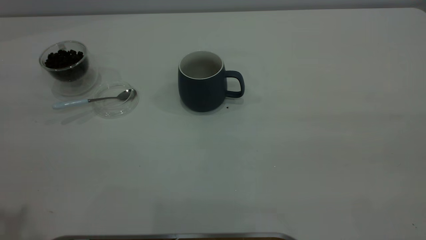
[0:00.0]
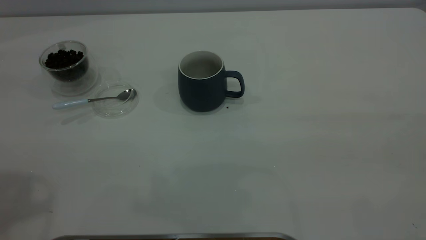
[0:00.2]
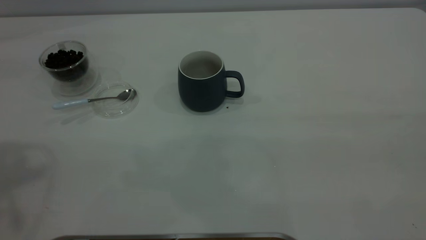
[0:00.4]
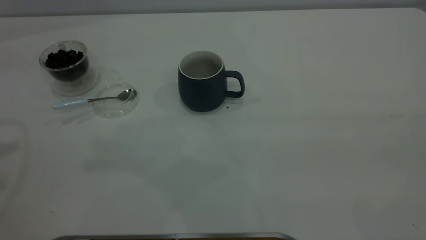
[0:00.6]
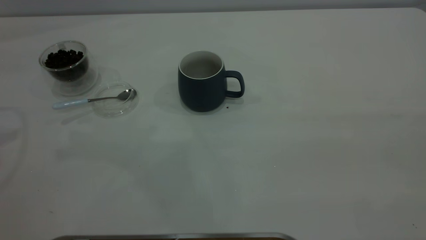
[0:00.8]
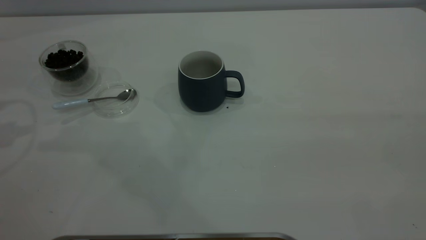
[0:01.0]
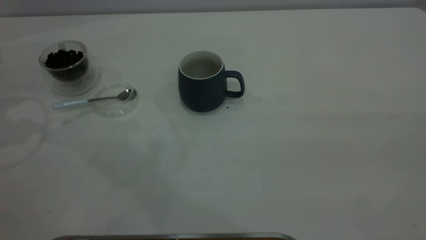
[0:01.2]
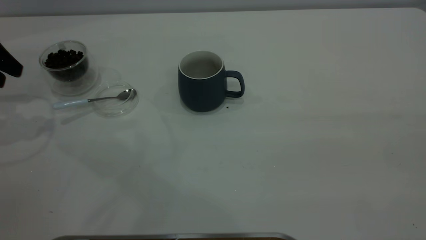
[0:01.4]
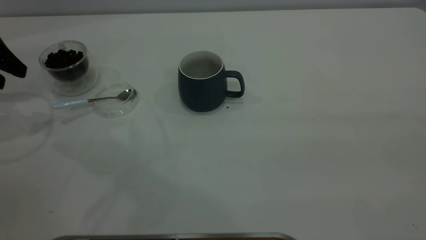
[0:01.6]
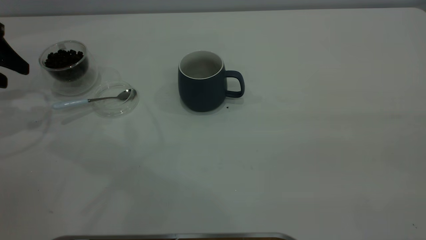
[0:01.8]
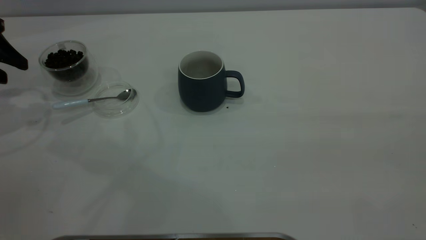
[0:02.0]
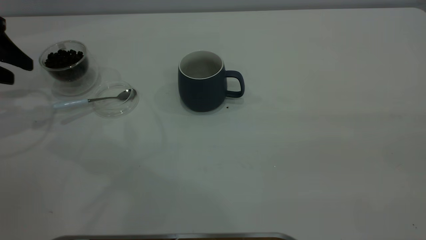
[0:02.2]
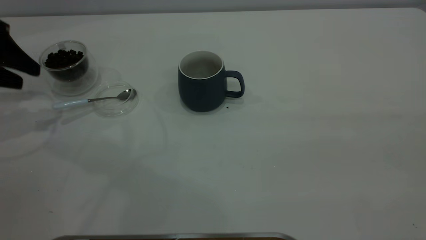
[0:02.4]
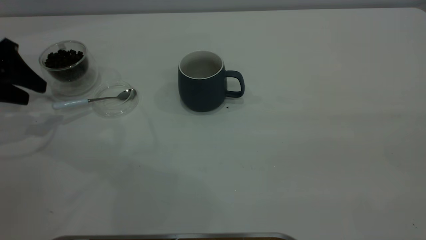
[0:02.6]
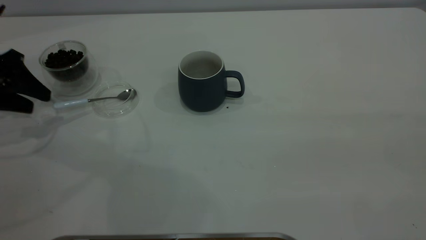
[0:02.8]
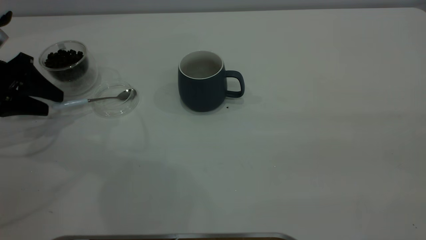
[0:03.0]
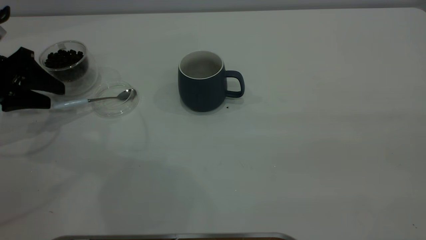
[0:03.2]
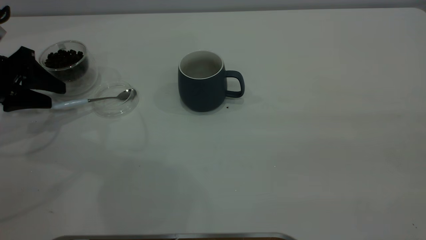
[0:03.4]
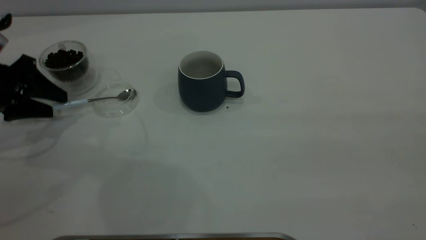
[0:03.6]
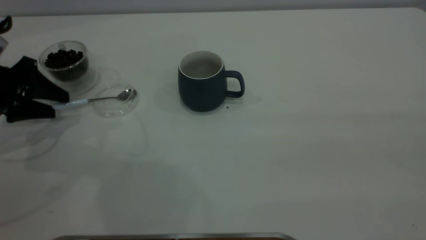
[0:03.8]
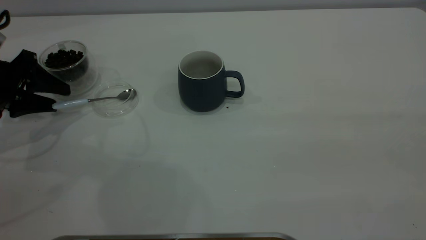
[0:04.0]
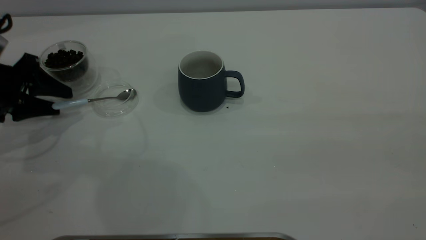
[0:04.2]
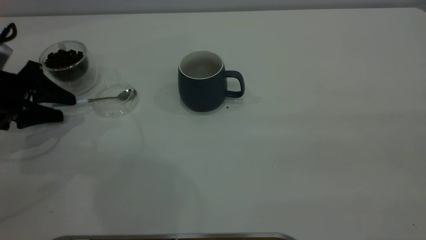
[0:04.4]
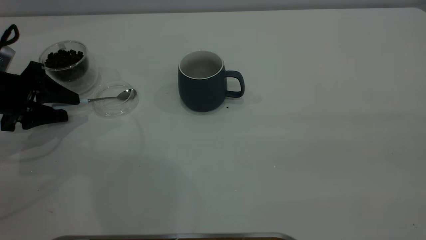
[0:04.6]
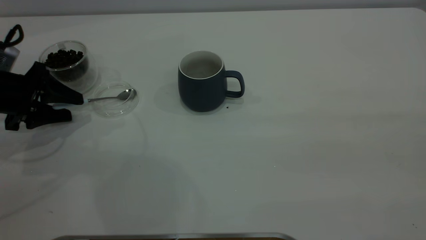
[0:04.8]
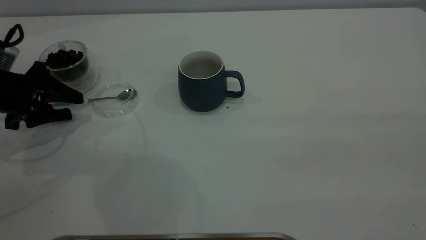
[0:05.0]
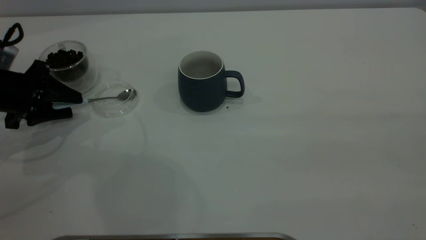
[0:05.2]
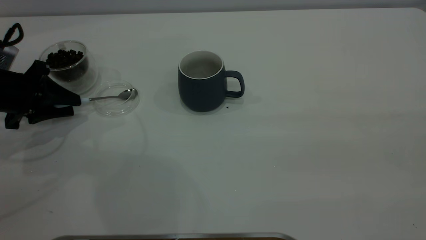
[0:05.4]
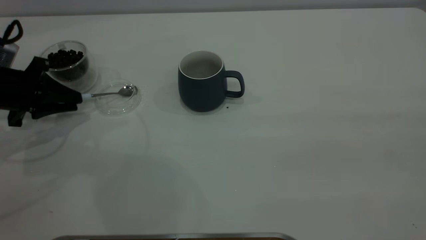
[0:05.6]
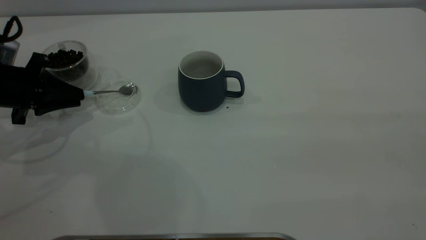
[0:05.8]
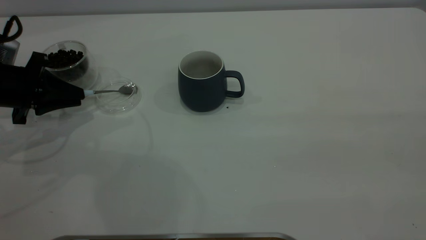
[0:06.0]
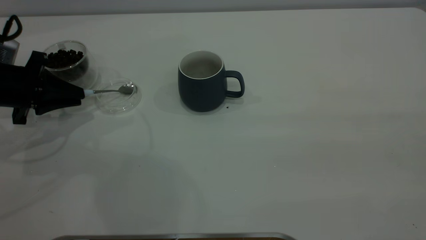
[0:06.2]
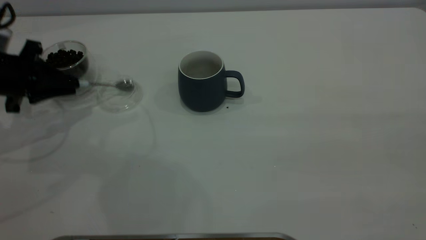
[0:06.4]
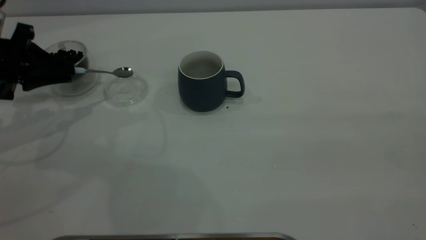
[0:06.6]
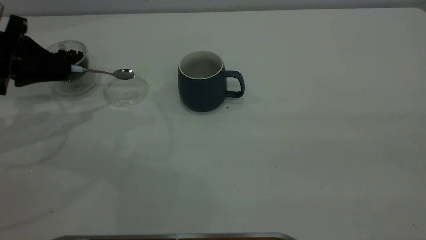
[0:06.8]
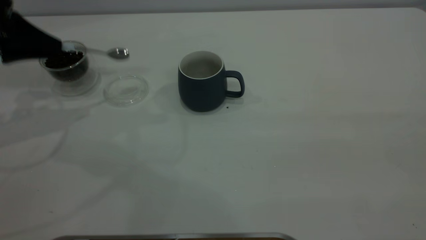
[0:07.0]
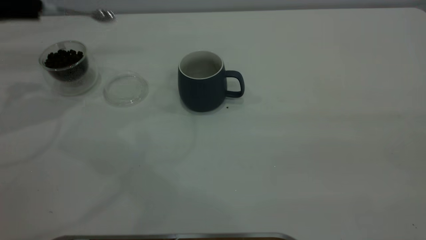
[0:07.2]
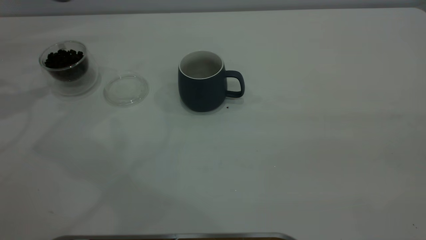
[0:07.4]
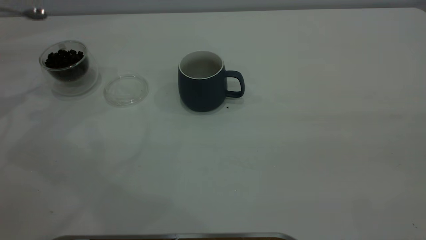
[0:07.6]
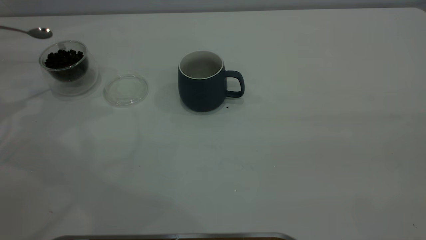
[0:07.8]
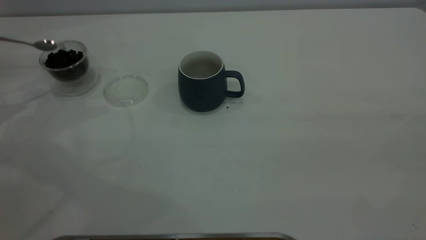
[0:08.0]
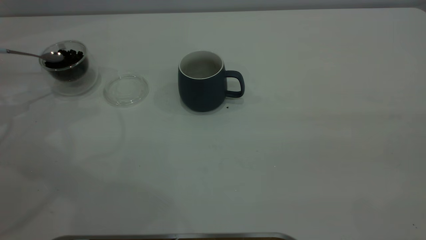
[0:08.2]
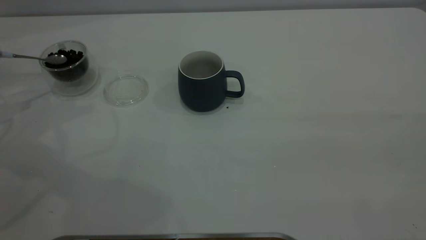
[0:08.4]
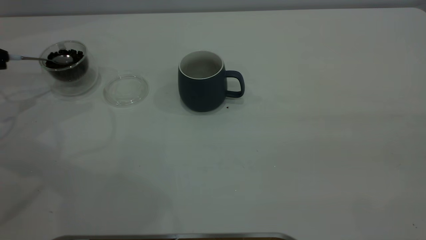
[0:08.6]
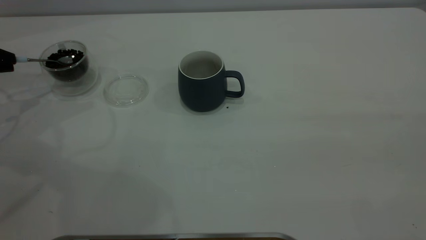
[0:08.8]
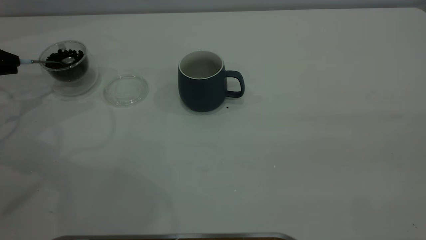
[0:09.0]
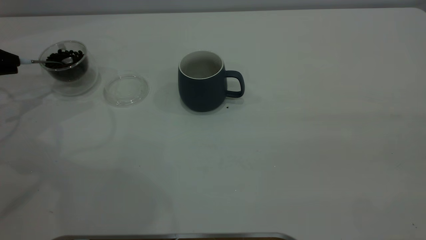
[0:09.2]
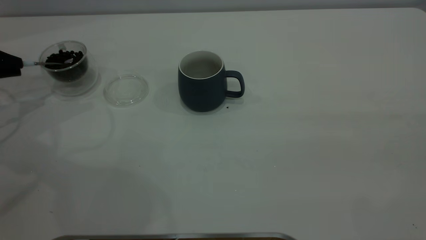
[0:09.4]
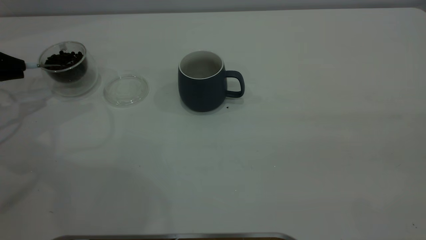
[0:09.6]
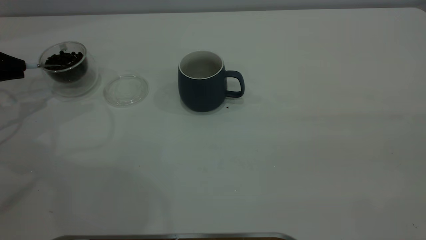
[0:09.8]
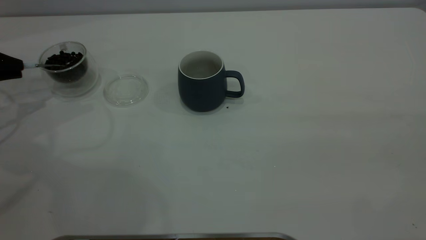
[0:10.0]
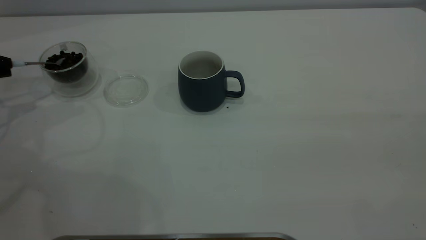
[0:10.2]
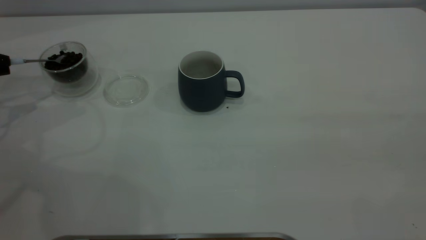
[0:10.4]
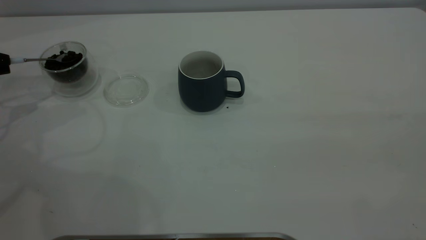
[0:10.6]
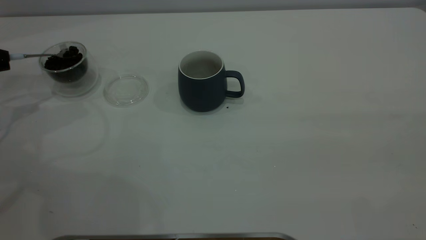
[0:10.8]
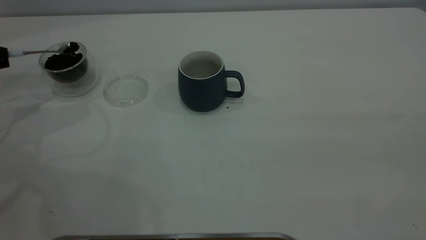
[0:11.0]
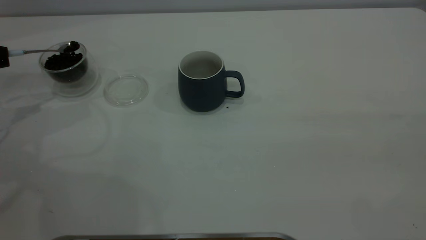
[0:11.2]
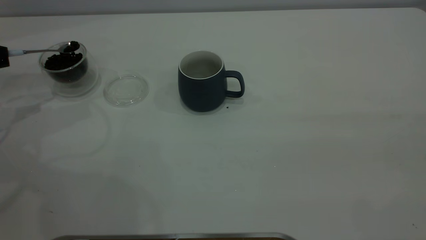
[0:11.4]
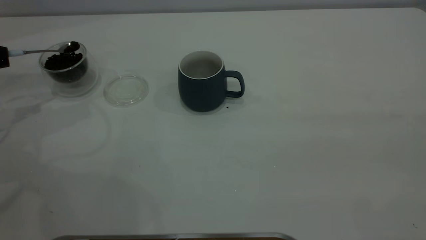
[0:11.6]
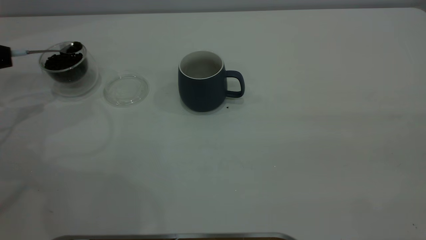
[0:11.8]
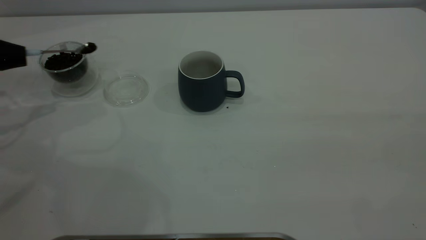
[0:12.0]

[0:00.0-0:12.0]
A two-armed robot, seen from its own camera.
Task of the whole recording: the right gripper place the grey cup in the center of the table, the left gripper take the blue spoon from the cup lid and scoop out the coffee beans from the coffee cup and put them into the grey cup, the left gripper put the spoon back into the cup lid.
Step, 0:00.0 to 0:07.0: Pick up the spoon.
0:00.0 to 0:01.6: The left gripper heads forward, downward and to the left, covering approximately 30 cm.
0:01.6 to 0:03.0: The left gripper heads downward, covering roughly 10 cm.
0:03.0 to 0:04.4: The grippers stay close to where they were, moving slightly.
0:04.4 to 0:06.0: The left gripper closes its fingers.
0:06.0 to 0:07.6: The left gripper shifts some 20 cm upward and to the left.
0:07.6 to 0:09.0: The left gripper goes some 10 cm downward.

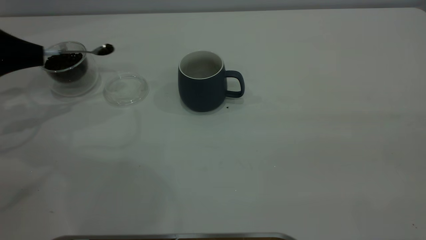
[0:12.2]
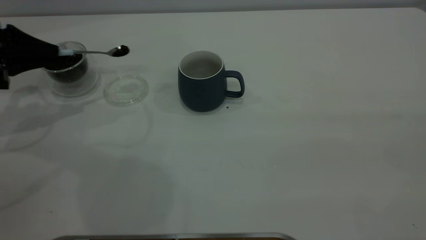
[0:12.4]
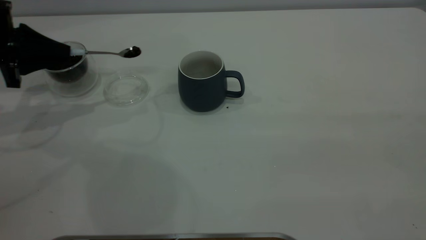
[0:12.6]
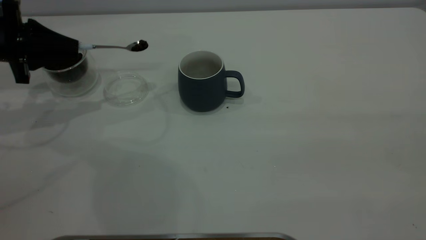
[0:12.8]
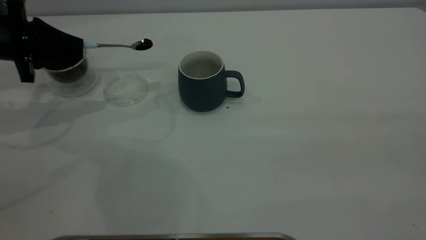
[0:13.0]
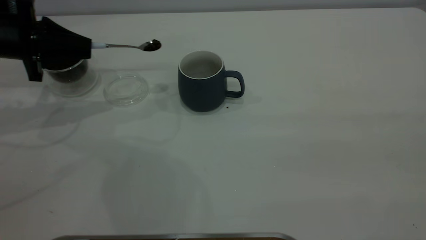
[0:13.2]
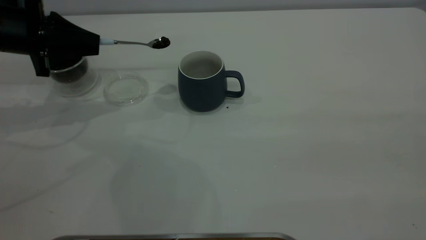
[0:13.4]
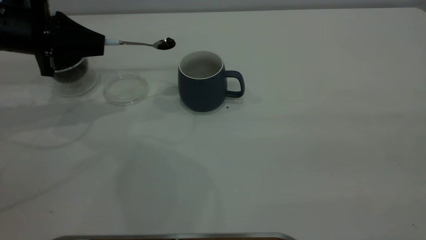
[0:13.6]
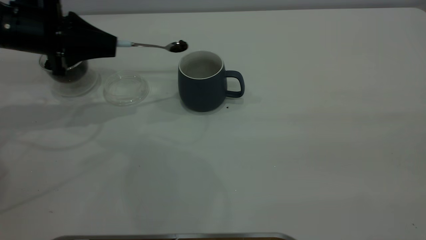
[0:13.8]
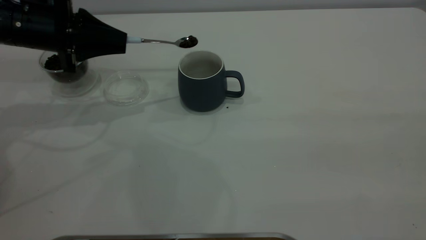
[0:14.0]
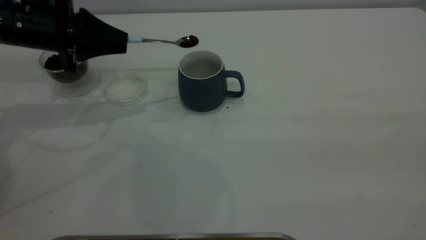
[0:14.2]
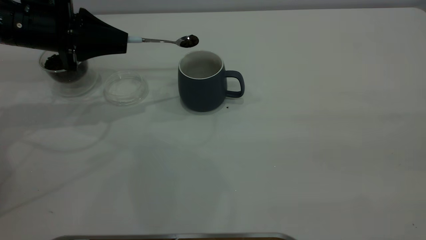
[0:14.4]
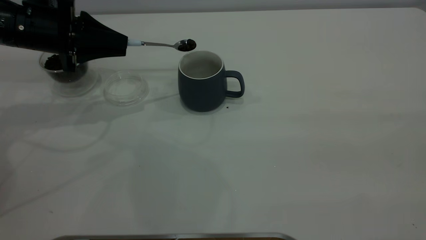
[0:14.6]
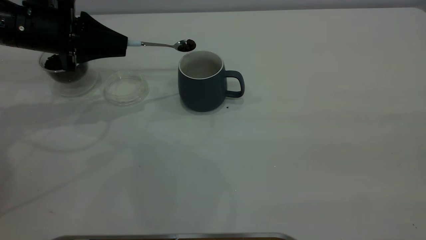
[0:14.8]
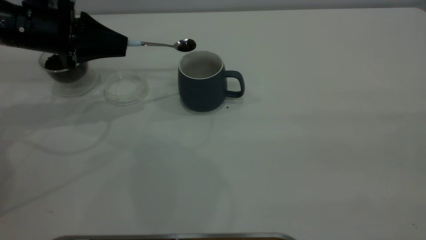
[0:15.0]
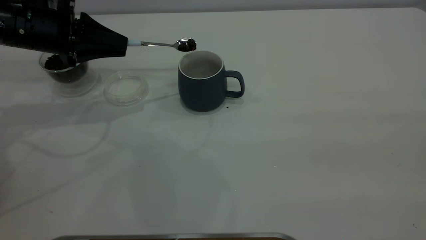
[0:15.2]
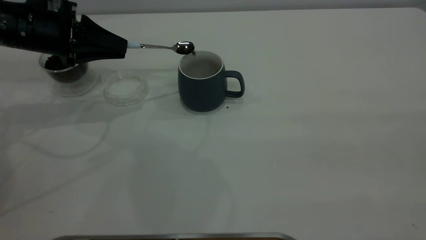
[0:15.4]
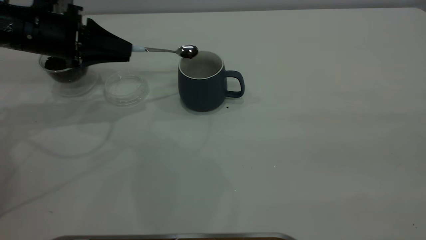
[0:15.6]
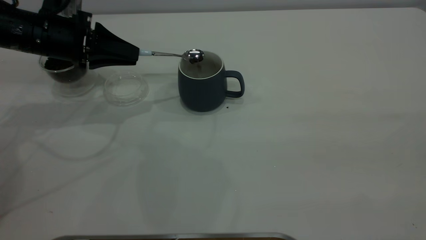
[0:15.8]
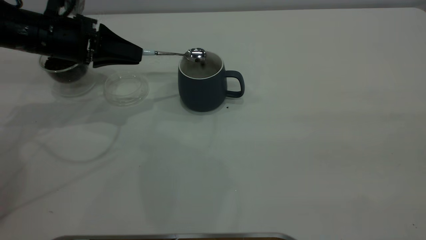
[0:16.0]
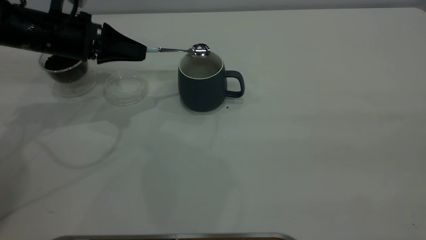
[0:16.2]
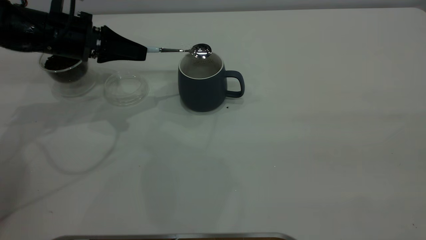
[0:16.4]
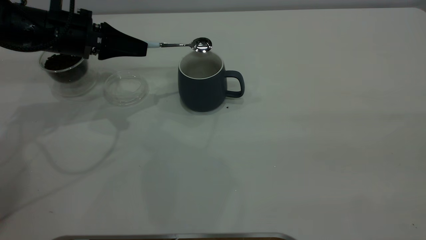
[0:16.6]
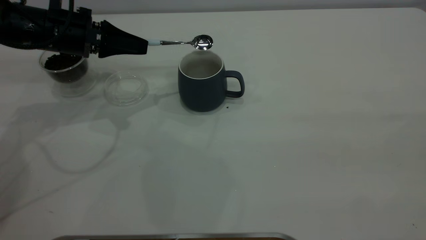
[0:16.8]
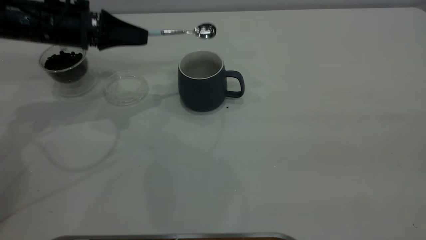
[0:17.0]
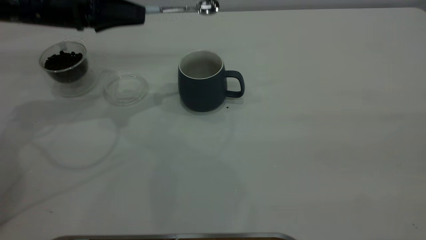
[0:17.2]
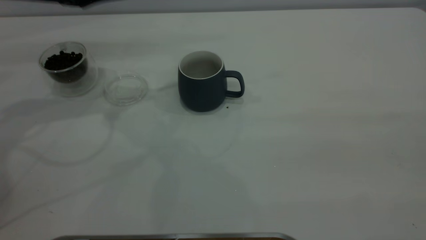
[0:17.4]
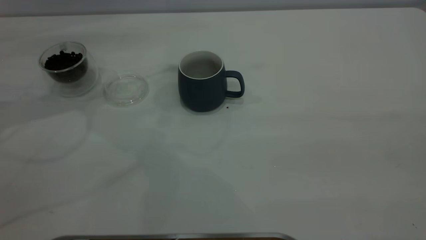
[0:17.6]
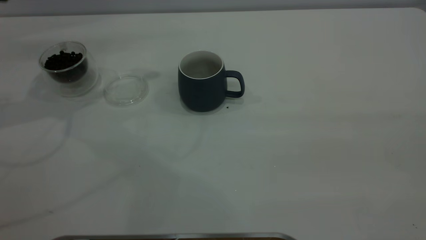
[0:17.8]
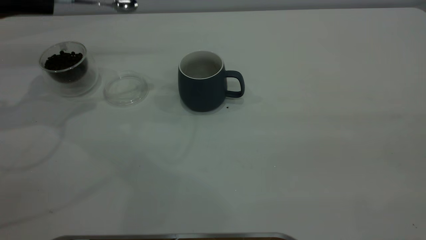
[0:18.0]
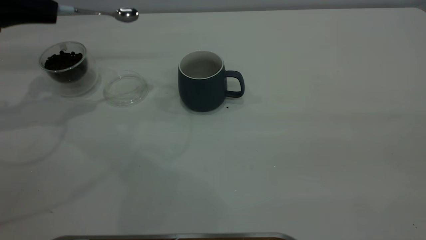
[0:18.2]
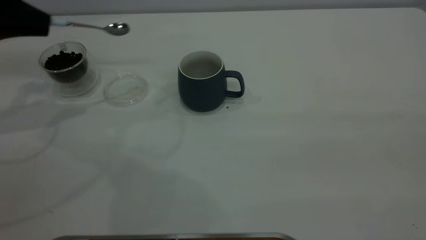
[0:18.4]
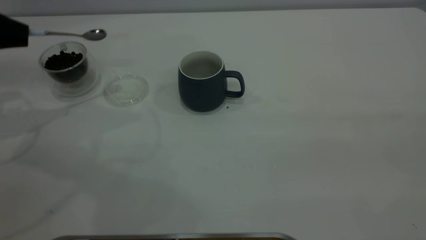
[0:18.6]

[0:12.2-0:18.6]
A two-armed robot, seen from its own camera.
Task of the whole recording: the right gripper place the grey cup in the center of the table, the left gripper take the blue spoon from the cup lid and scoop out the coffee beans from the coffee cup and put them into the grey cup, the left gripper put the spoon back into the cup lid.
Step, 0:12.2 to 0:17.0: Scoop a spoonful of beans into the cup.
0:12.2 to 0:13.8: The left gripper is displaced to the right by approximately 10 cm.
0:13.8 to 0:15.4: The grippers move only a little.
0:17.0 to 0:18.6: The left gripper goes about 15 cm to the left.
